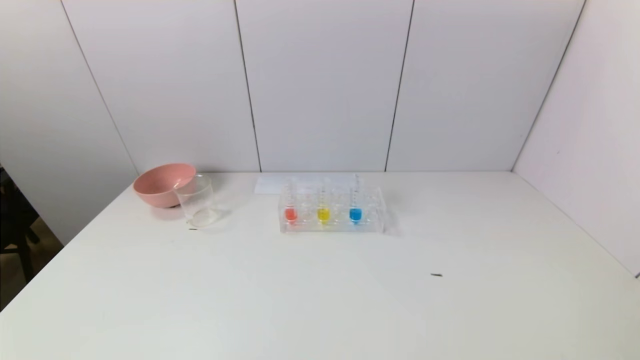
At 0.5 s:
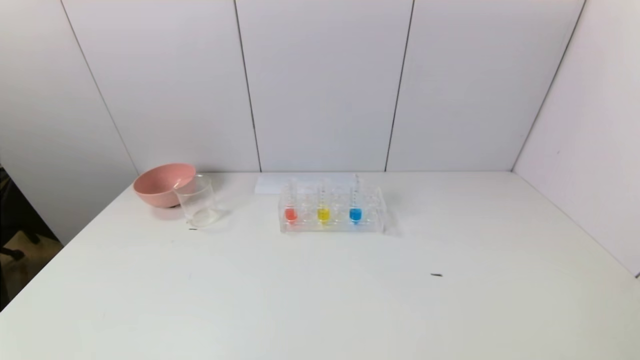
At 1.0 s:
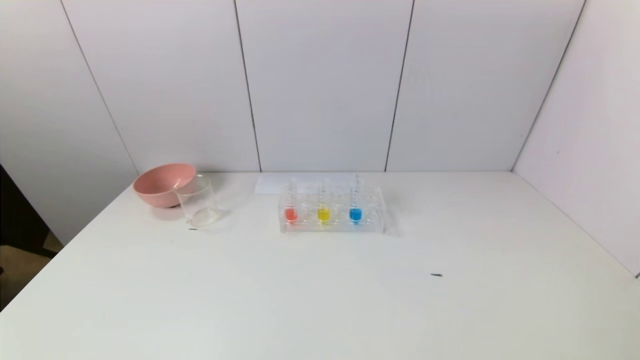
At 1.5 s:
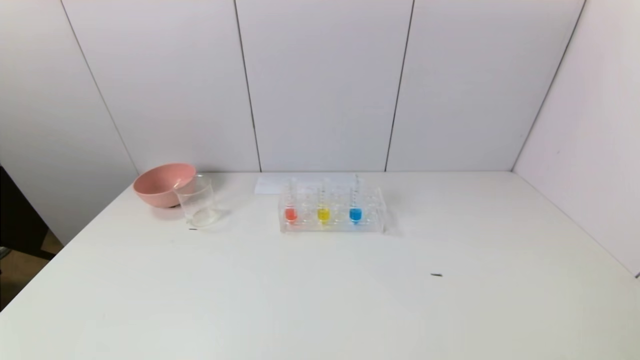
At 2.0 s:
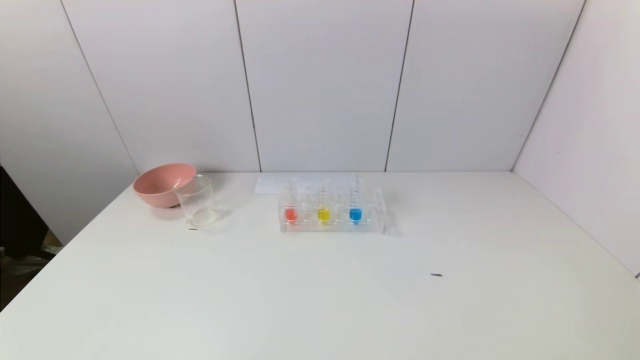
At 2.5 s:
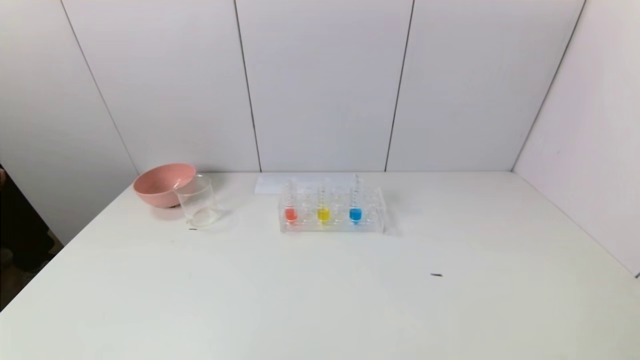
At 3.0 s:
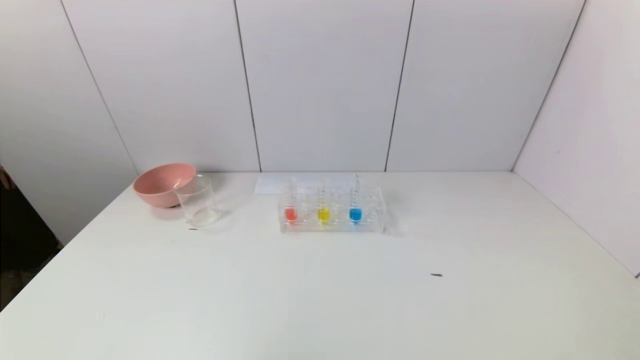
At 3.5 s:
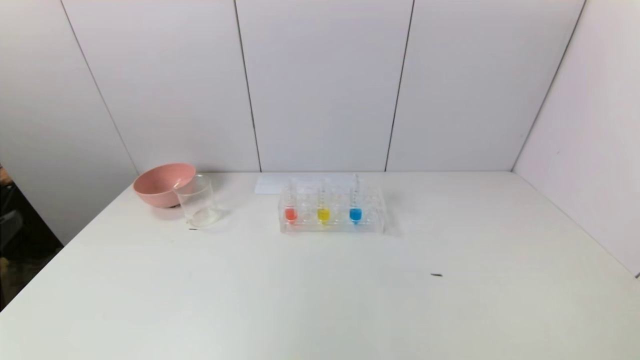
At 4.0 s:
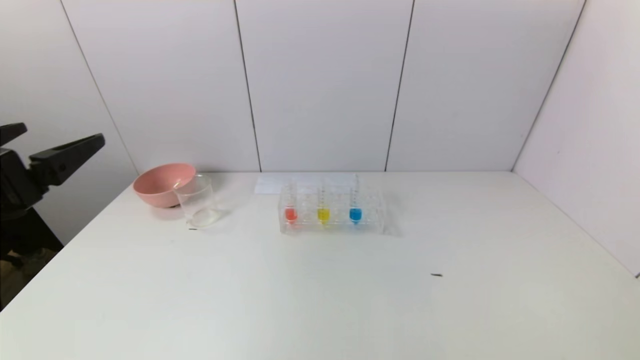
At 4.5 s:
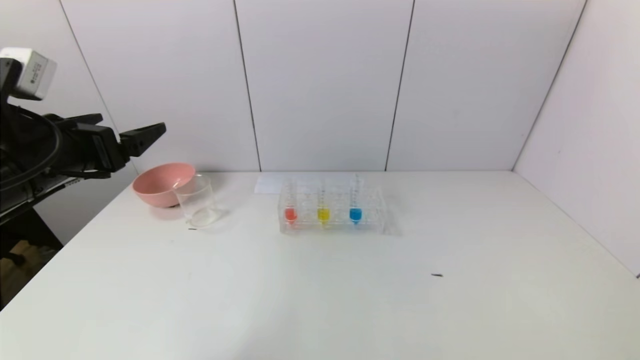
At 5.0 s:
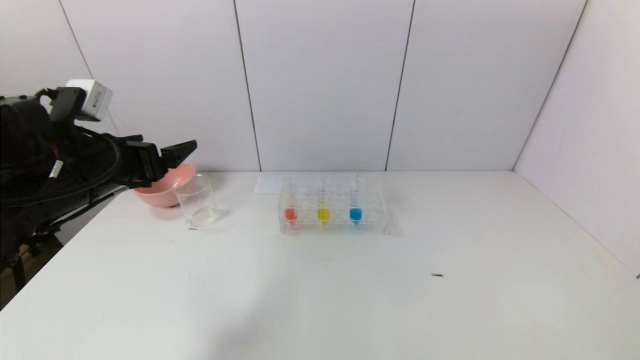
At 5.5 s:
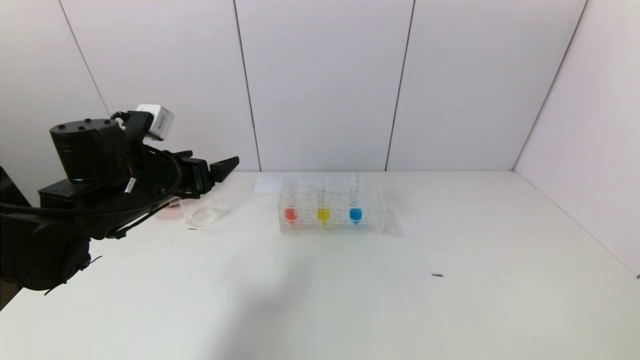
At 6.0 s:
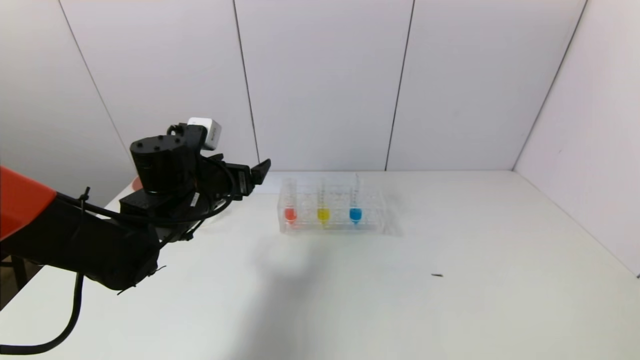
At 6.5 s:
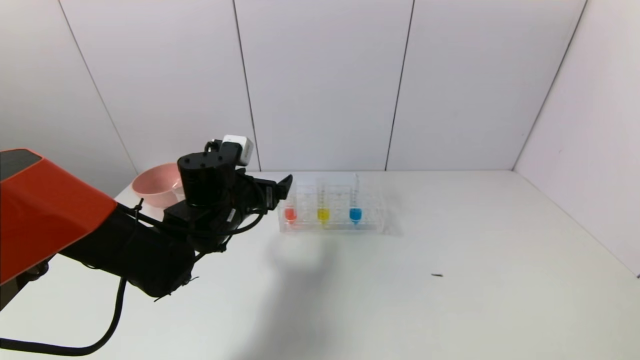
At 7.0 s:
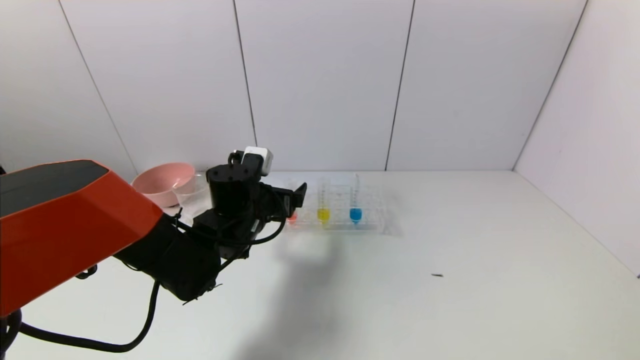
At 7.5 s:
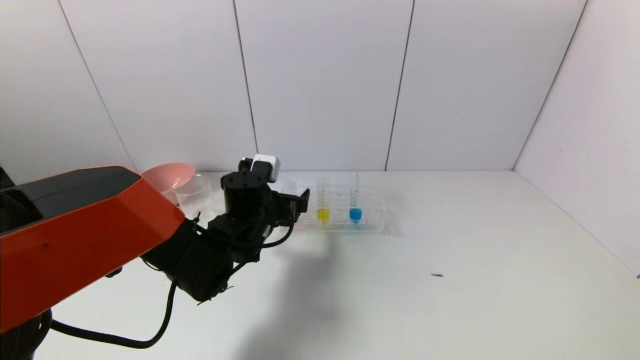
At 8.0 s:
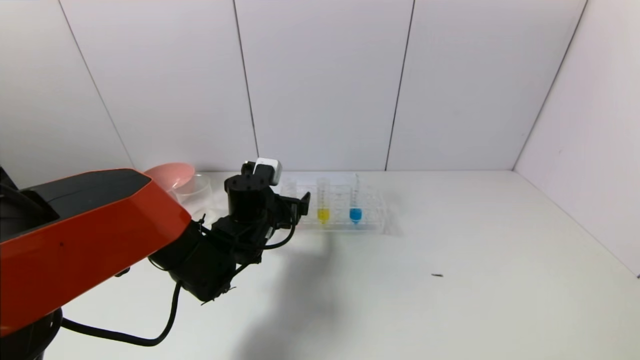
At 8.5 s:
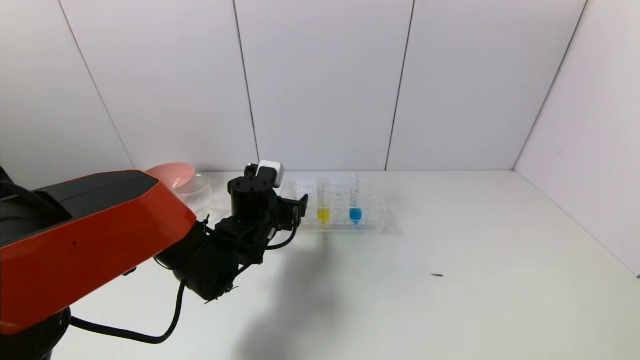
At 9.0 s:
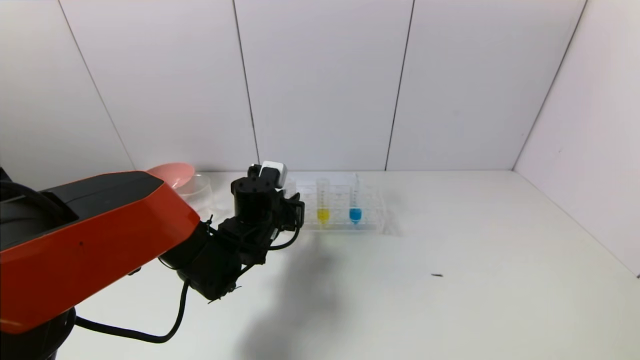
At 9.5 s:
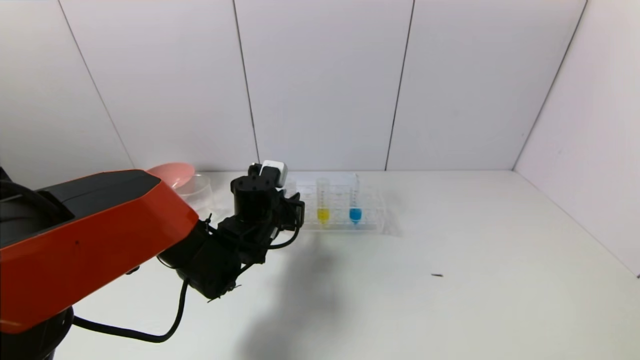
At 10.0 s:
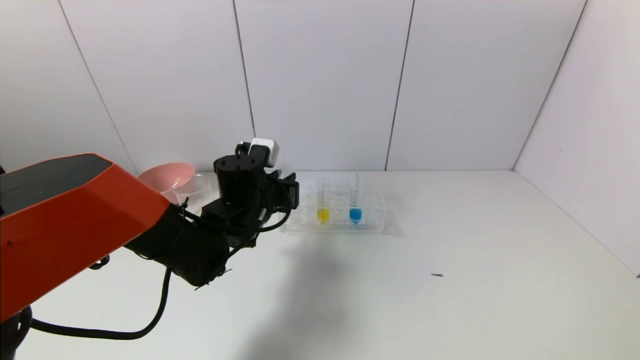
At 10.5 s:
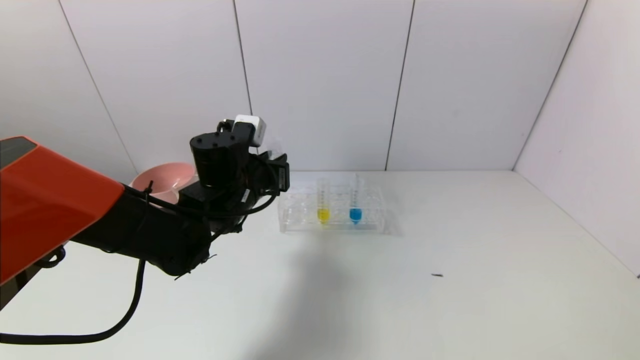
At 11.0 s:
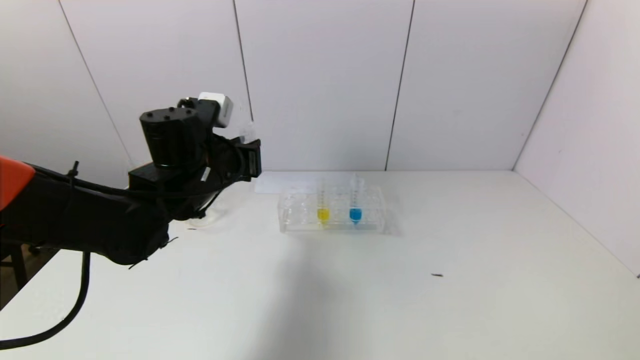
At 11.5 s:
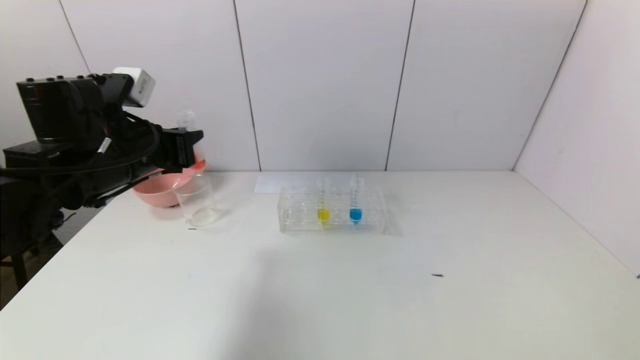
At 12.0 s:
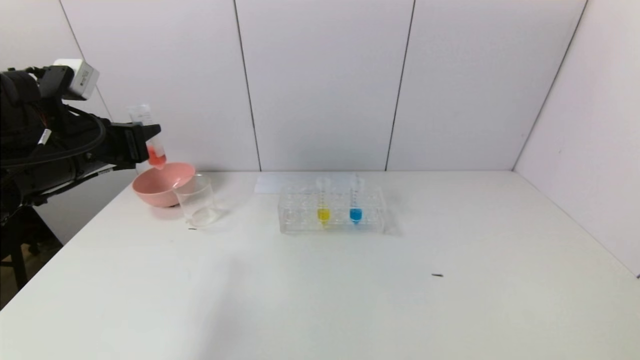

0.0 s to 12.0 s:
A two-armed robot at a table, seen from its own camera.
Task of the whole recording: pick up the test tube with yellow pigment and the test tube with red pigment by grippers and pour them into the beaker.
Step, 0.0 to 9.0 s: Grasp the red reagent with the left gripper.
0.0 to 2.0 s: The two grippers keep their place.
2.0 to 4.0 s: The left gripper travels upward and forward by some 25 cm.
4.0 to 6.0 s: The left gripper heads forward, to the right and downward, covering about 25 cm.
6.0 to 8.0 s: The left gripper heads to the right and downward, covering some 10 cm.
8.0 to 10.0 s: The left gripper closes its fingers.
10.0 to 12.0 s: The left gripper shifts some 25 cm to the left and upward.

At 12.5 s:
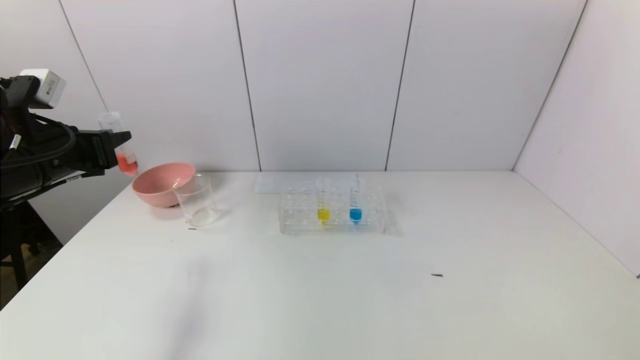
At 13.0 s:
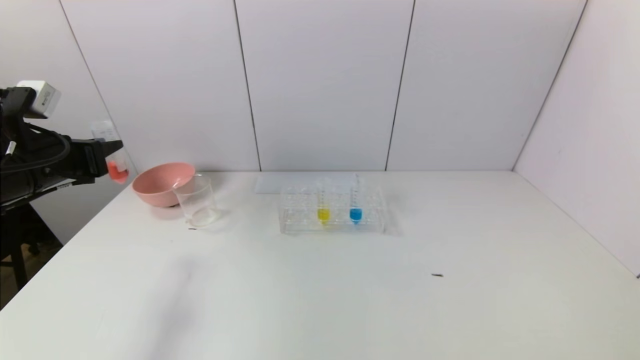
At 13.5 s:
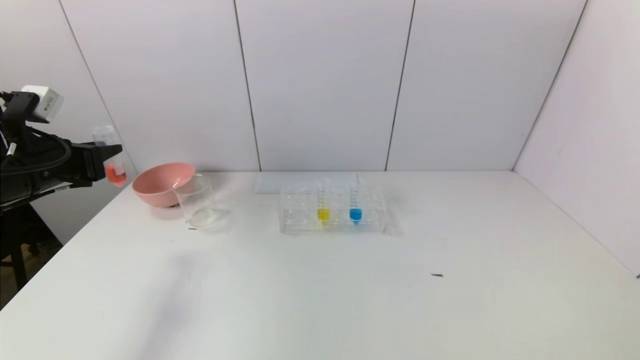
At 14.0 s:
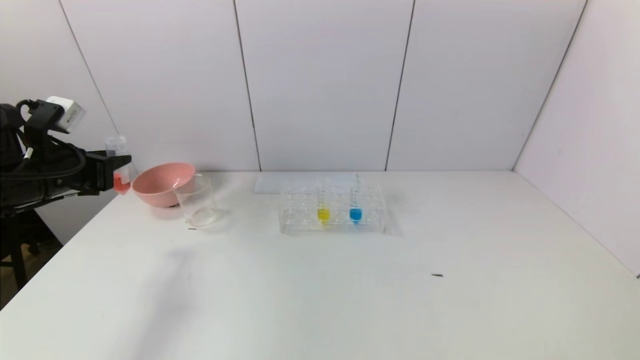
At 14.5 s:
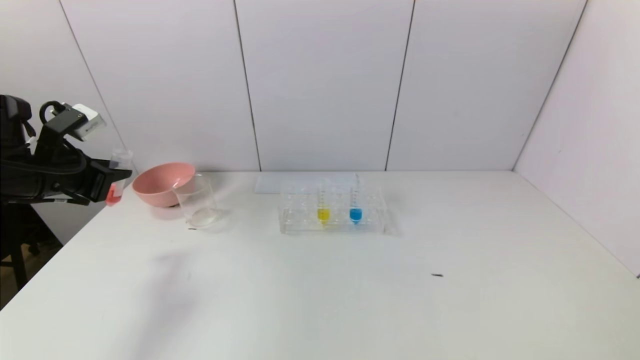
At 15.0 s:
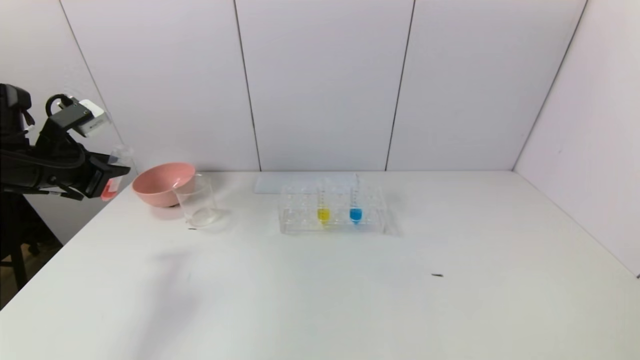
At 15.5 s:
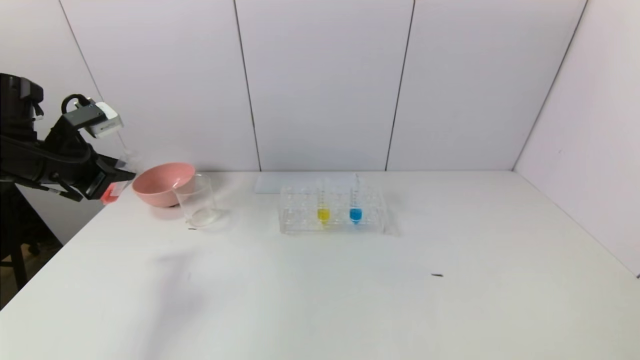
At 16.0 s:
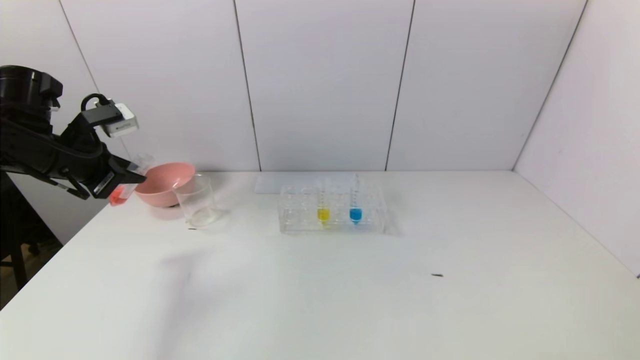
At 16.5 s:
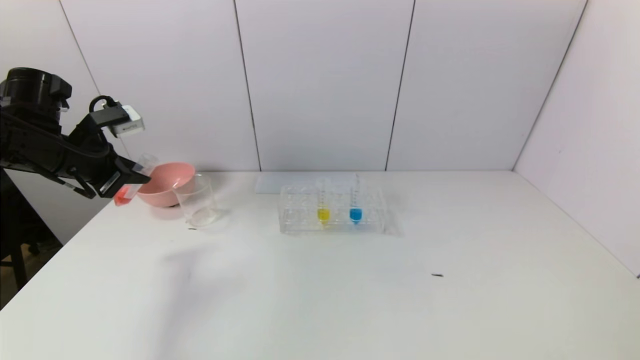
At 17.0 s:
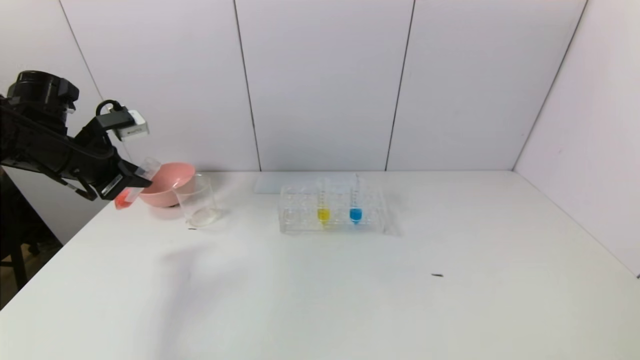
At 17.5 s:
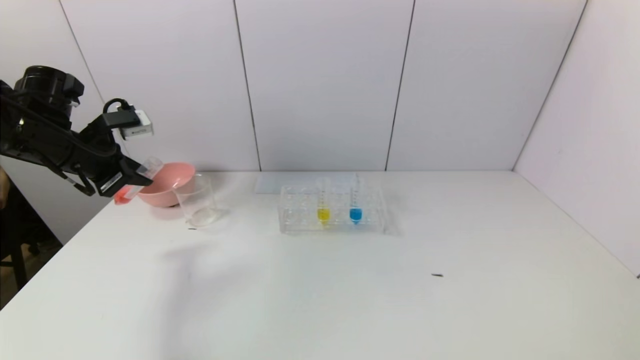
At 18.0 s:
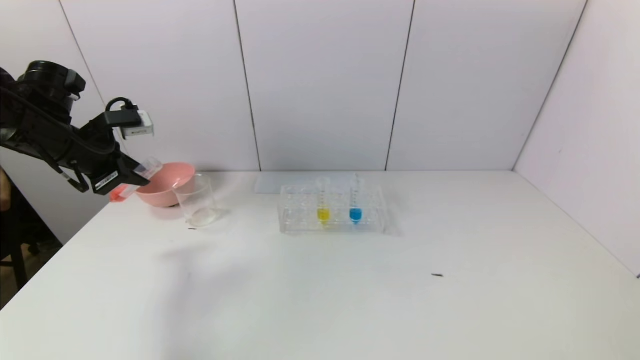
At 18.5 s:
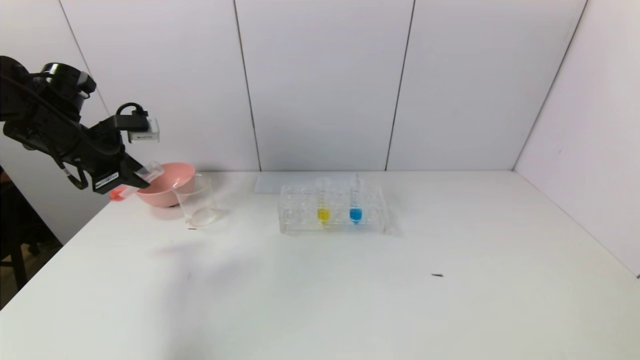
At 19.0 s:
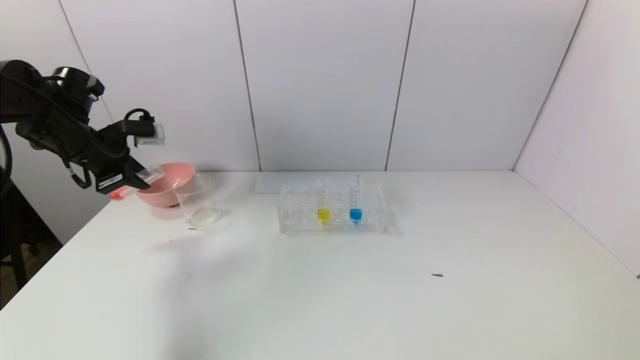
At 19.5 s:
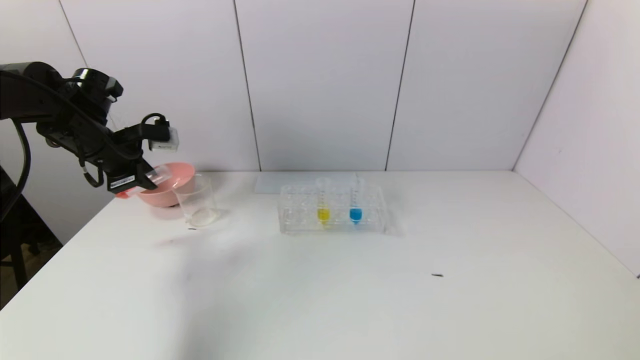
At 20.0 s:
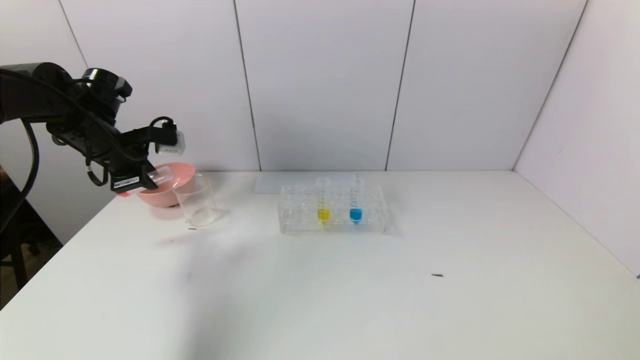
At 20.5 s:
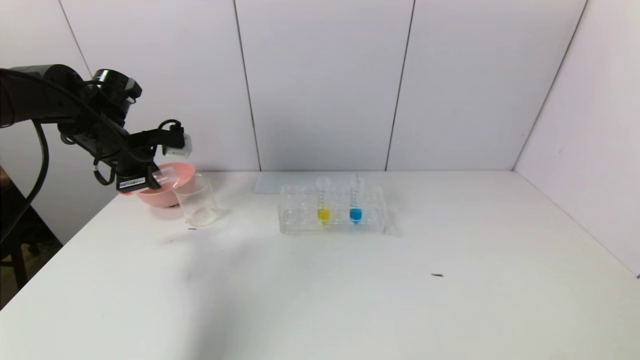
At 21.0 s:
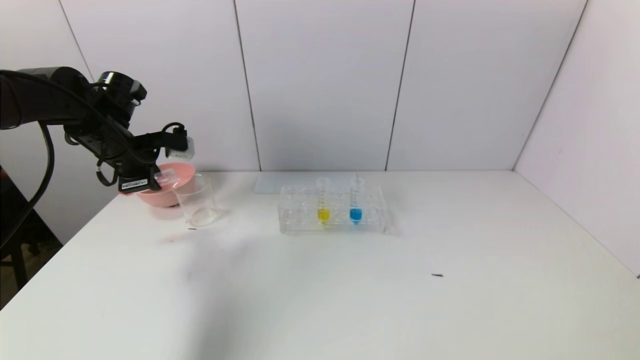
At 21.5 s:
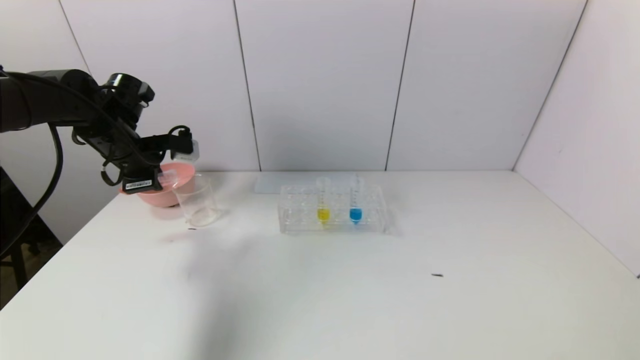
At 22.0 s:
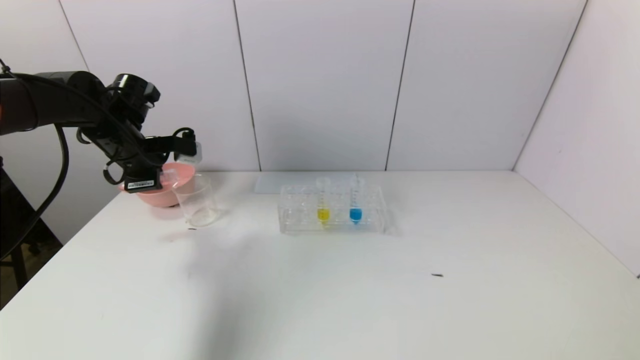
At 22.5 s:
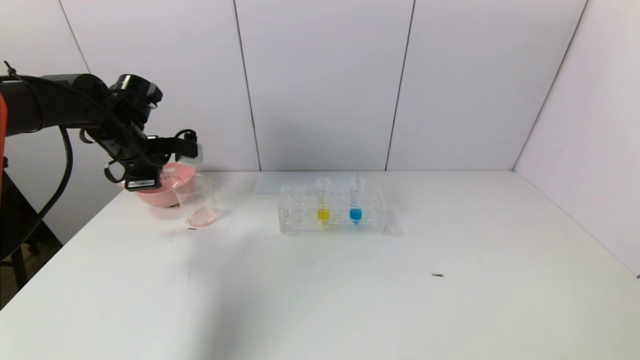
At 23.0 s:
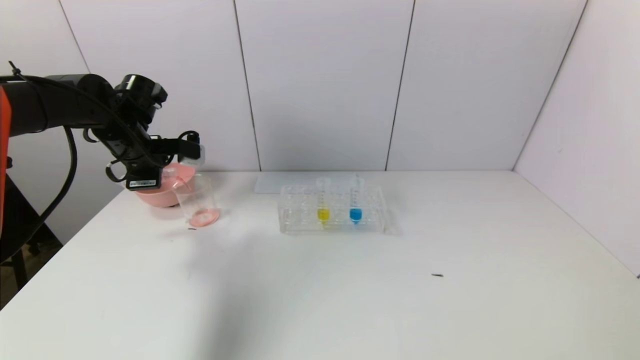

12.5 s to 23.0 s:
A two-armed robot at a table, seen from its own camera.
Task of the whole recording: pick up the test tube with yellow pigment and the test tube with red pigment by grippers and pour them into the beaker.
12.5 to 14.5 s: The left gripper ends up some 5 cm from where it was.
19.0 to 21.0 s: The grippers move only a little.
21.0 to 23.0 s: The grippers stay close to where they were, moving slightly.
